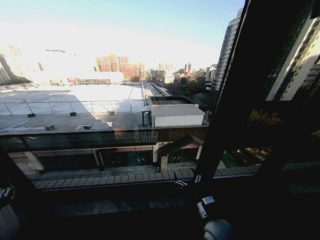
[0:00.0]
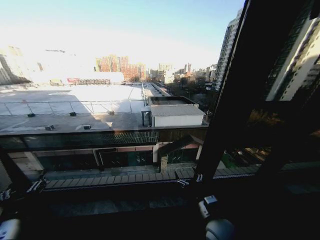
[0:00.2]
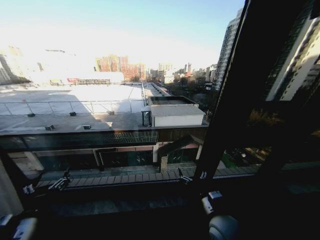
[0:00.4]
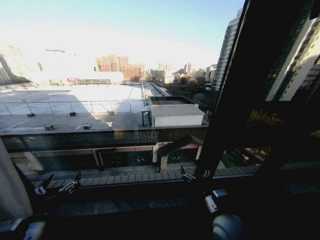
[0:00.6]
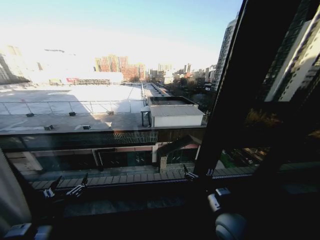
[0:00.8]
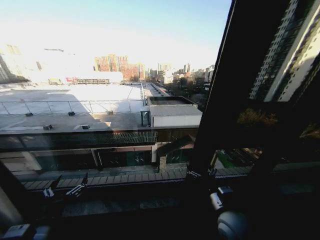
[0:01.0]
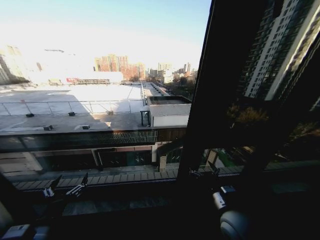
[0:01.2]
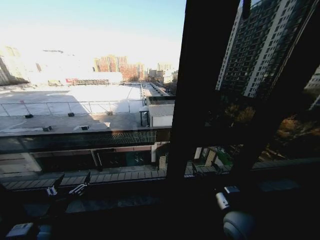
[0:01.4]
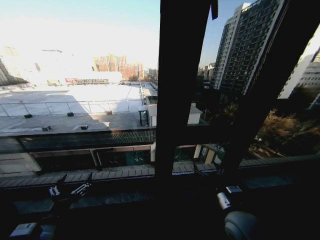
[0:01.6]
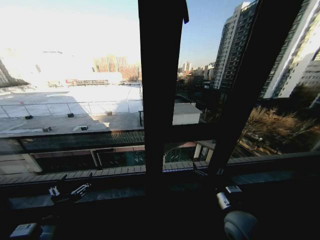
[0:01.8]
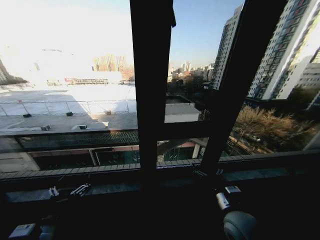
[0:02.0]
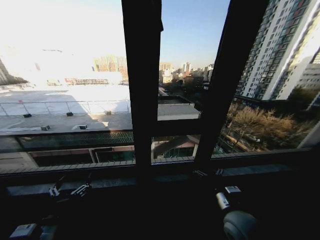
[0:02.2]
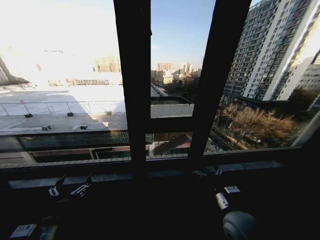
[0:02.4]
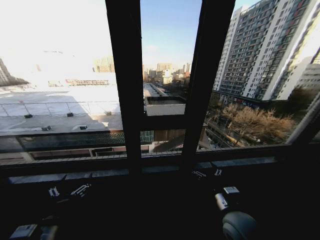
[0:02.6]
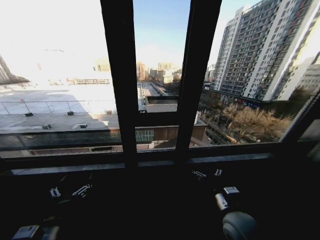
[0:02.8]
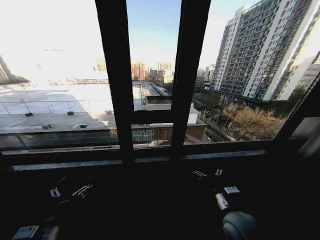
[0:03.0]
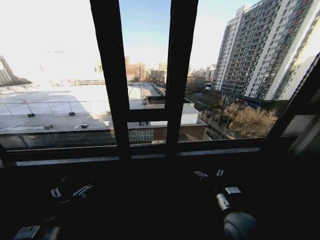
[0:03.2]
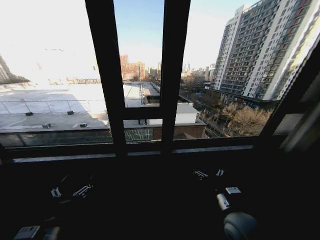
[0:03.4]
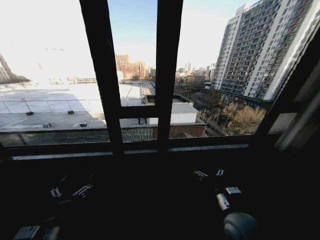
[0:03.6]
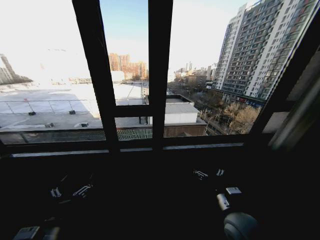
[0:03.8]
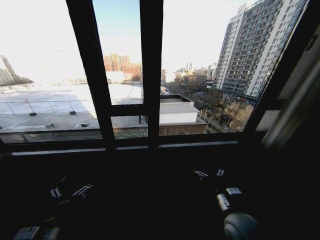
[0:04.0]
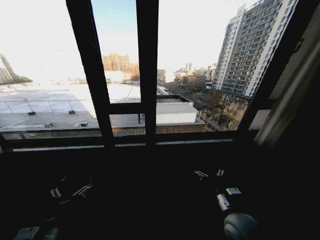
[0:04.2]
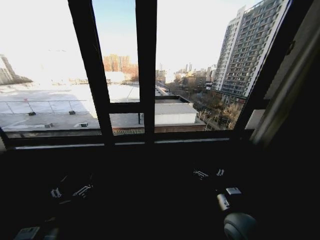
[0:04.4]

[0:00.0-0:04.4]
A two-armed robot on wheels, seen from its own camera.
Task of the whole recording: Open the curtains by pulling them apart, changing their state from closed to fully open.
0:00.0 to 0:01.4: The left gripper moves to the right, approximately 15 cm, and opens. The right gripper is displaced upward and to the right by roughly 10 cm.
